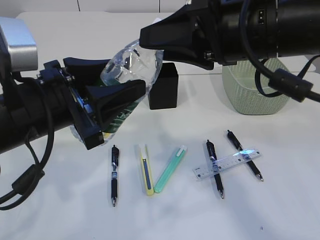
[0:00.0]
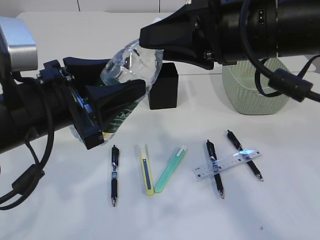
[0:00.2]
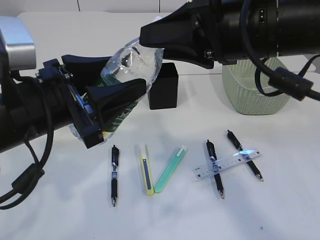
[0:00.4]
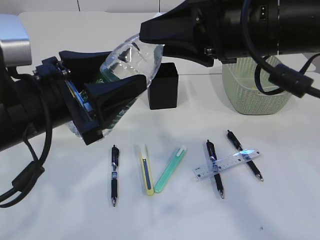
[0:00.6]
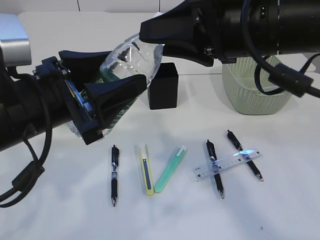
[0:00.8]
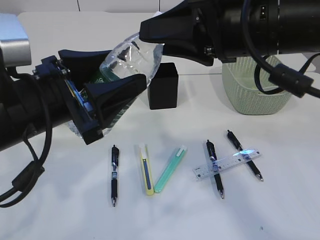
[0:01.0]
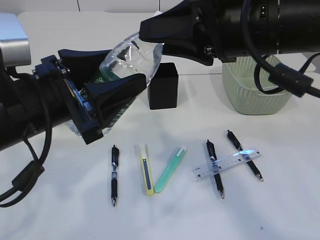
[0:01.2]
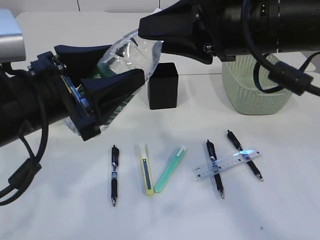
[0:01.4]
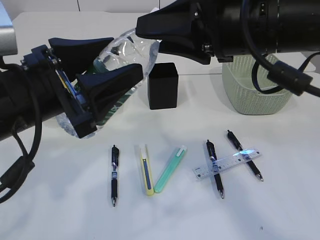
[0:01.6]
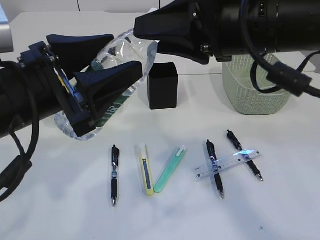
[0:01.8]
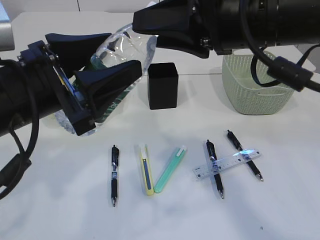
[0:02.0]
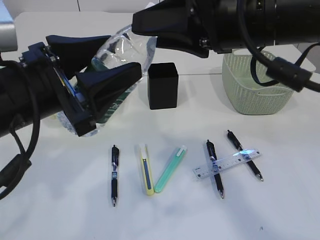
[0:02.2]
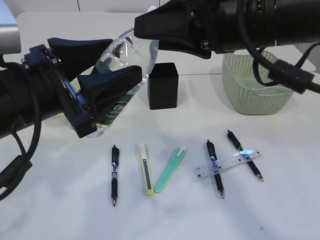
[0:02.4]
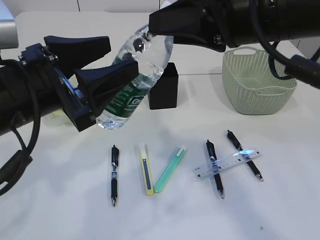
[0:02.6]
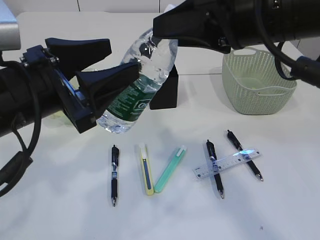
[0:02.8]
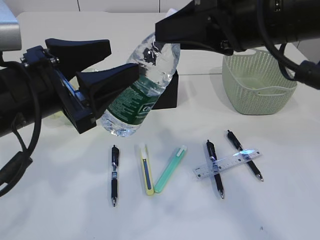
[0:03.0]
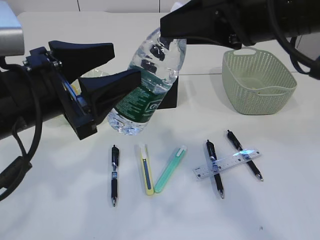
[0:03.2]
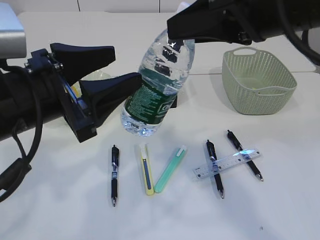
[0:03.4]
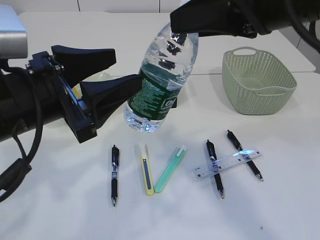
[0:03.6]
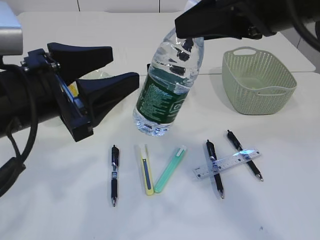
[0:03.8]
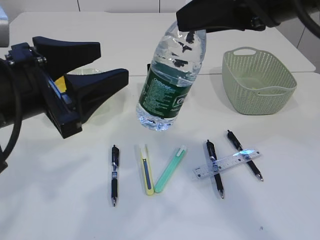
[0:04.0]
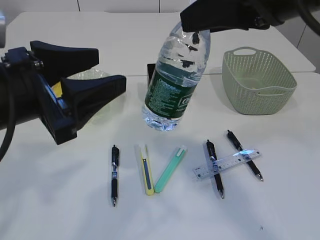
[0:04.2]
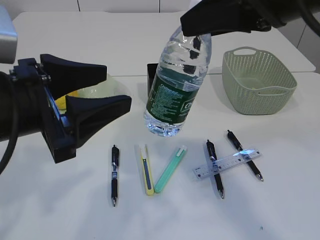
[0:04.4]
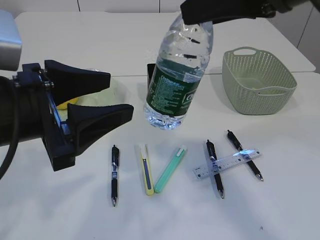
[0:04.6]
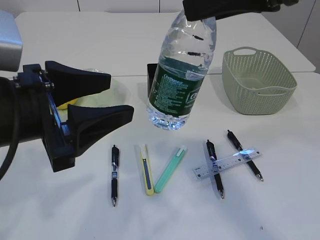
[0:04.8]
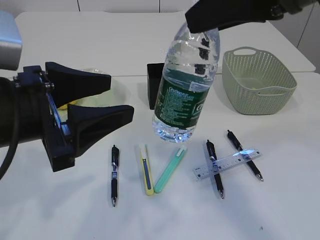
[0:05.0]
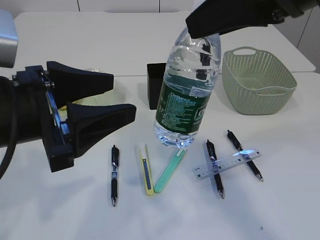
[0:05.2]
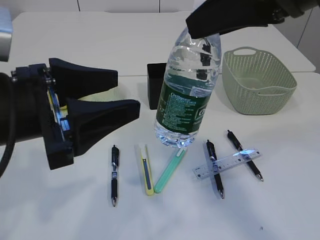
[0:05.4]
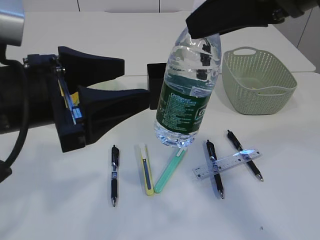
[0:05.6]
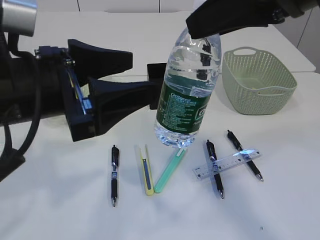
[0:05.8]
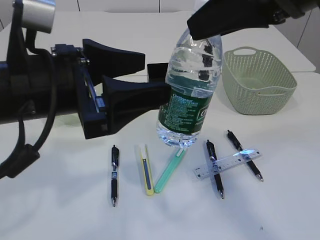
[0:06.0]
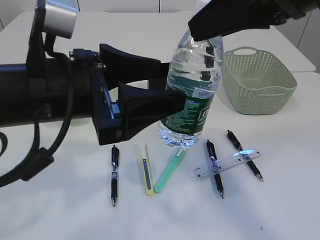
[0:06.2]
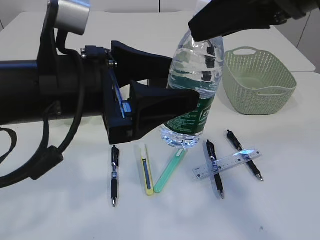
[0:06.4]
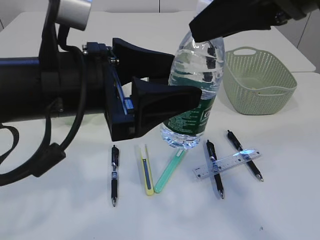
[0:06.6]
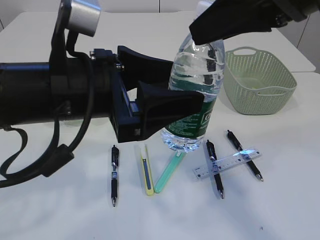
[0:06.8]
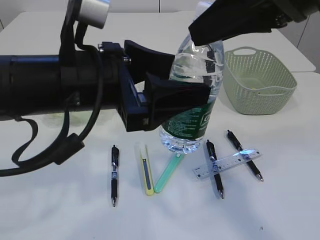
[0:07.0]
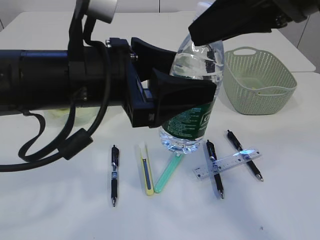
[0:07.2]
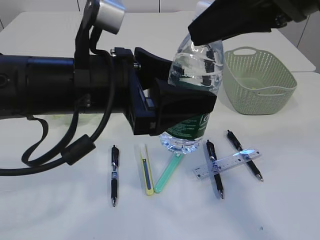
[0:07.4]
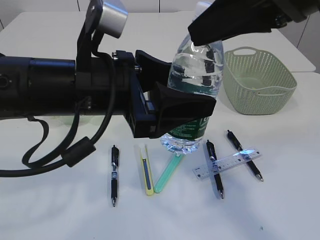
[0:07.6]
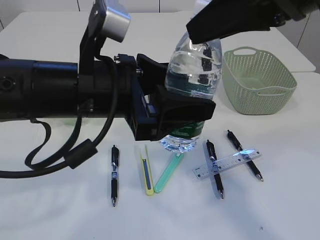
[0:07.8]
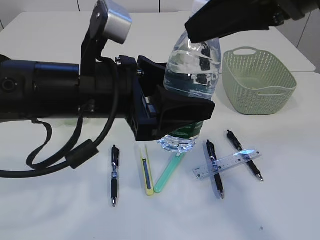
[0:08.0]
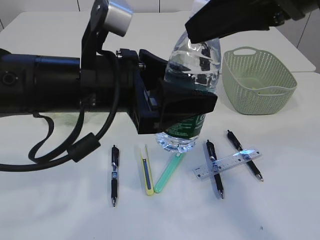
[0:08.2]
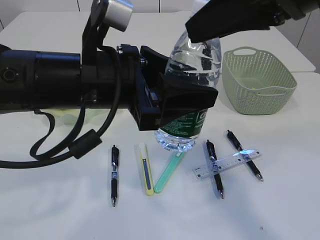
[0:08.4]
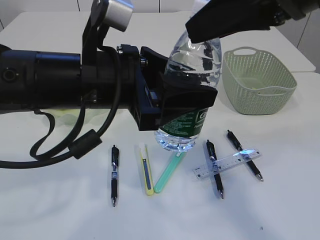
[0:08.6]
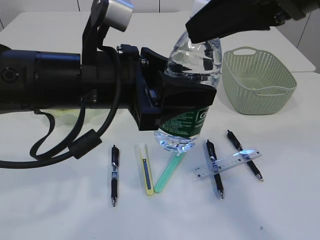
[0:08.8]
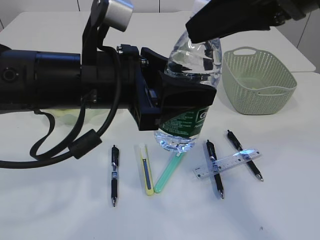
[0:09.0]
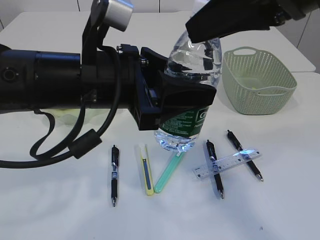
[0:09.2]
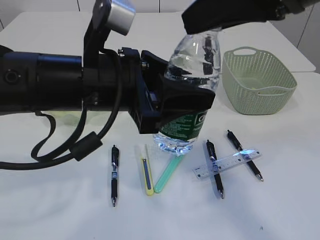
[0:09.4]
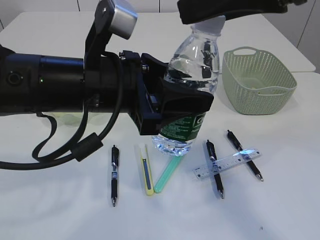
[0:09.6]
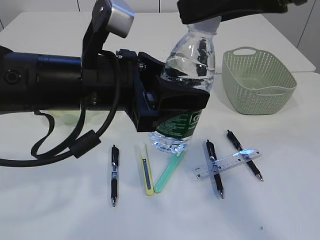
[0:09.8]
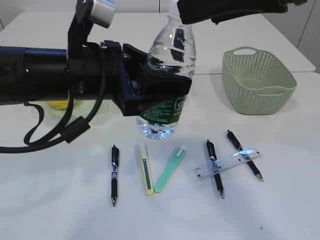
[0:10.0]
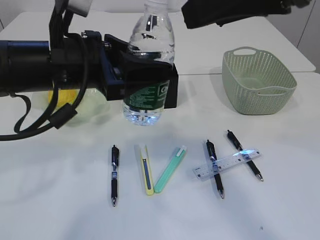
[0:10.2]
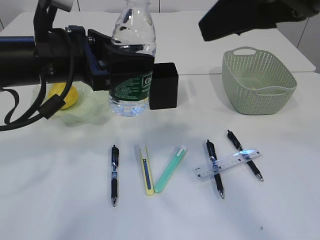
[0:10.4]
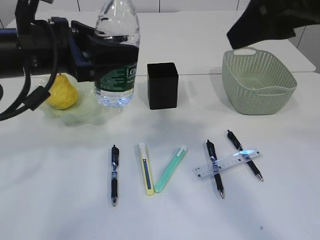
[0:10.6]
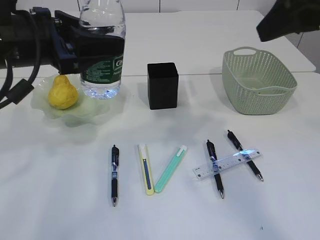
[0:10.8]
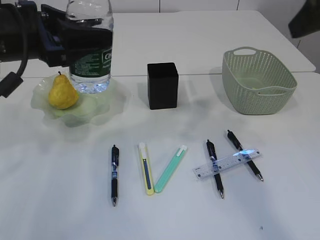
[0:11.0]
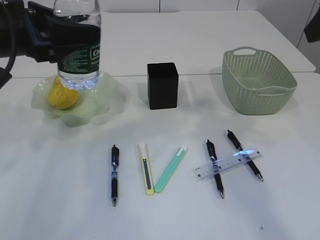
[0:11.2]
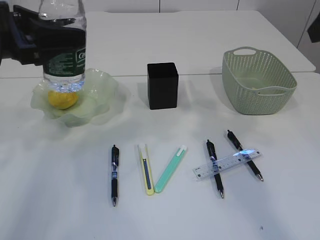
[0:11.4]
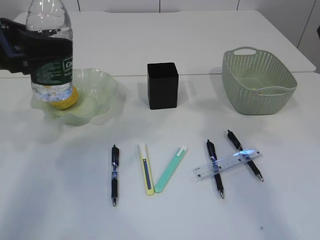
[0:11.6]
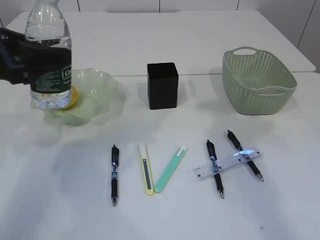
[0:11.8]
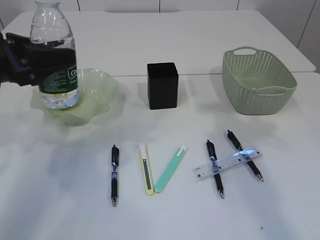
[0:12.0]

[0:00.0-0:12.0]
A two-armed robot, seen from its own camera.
Step, 0:00.0 to 0:04.0: Hand over the bottle.
Step, 0:04.2 to 0:10.8: transfer the bottle to the left arm.
0:00.0 to 0:03.0: The grippers move only a little.
0:06.0 to 0:07.6: The left gripper shifts by some 5 cm.
0:07.6 to 0:09.0: Both grippers stay put.
0:09.0 to 0:10.4: The left gripper goes approximately 10 cm to the left and forward; the right gripper opens its fingers.
0:10.4 to 0:12.0: The left gripper heads to the left, covering approximately 10 cm; the right gripper goes approximately 10 cm to the right.

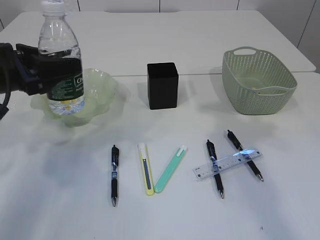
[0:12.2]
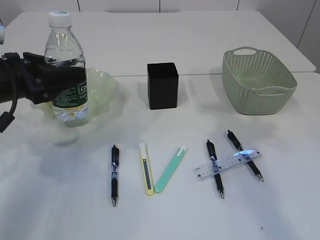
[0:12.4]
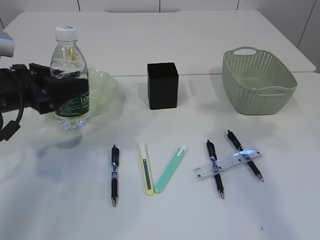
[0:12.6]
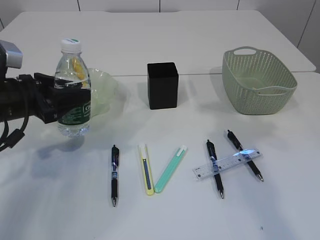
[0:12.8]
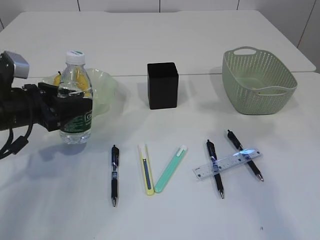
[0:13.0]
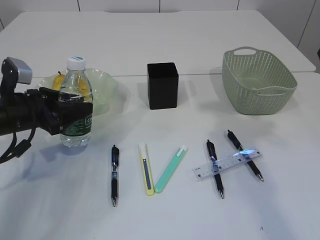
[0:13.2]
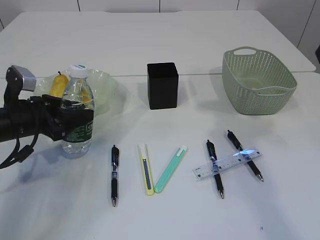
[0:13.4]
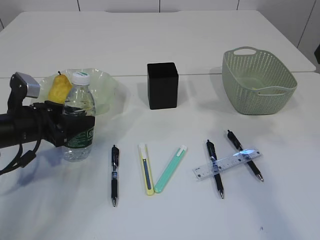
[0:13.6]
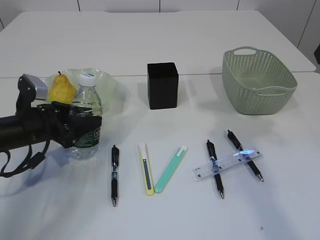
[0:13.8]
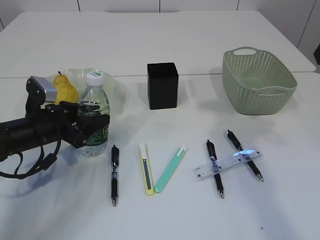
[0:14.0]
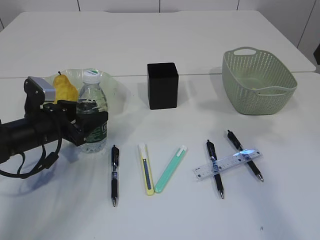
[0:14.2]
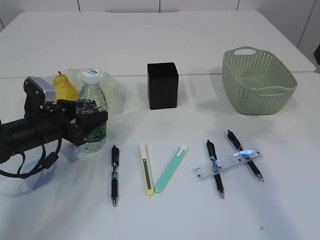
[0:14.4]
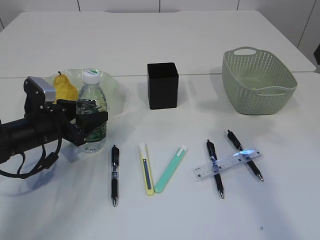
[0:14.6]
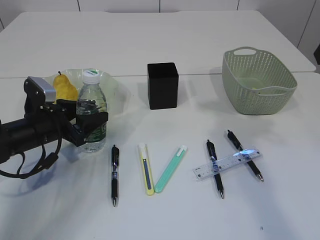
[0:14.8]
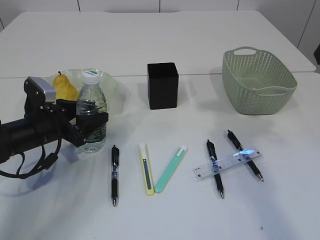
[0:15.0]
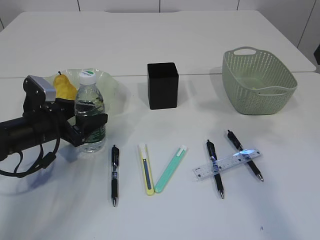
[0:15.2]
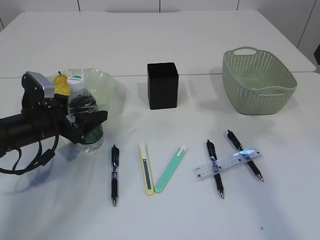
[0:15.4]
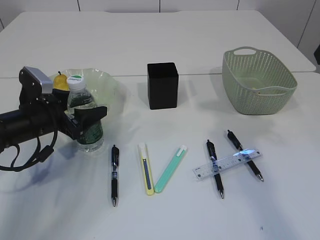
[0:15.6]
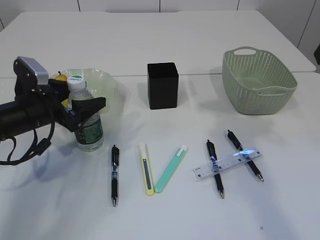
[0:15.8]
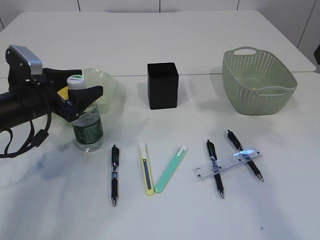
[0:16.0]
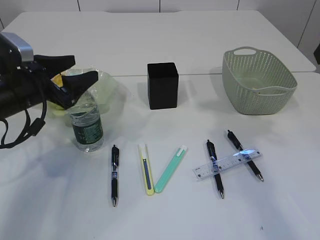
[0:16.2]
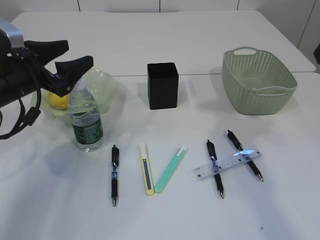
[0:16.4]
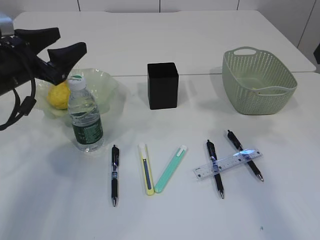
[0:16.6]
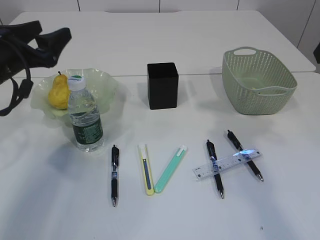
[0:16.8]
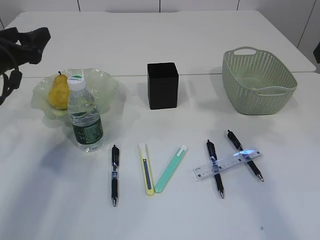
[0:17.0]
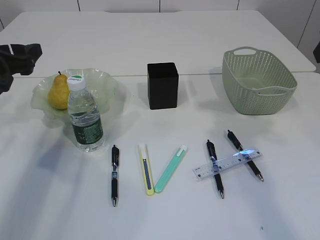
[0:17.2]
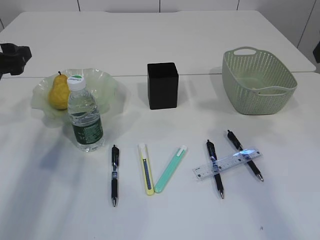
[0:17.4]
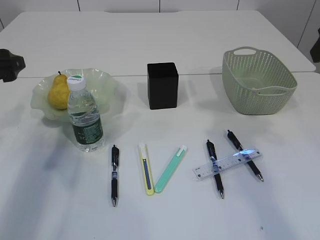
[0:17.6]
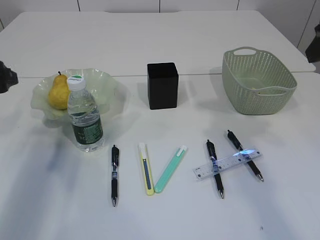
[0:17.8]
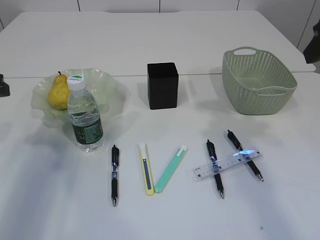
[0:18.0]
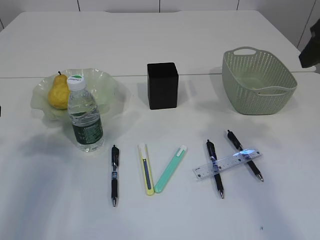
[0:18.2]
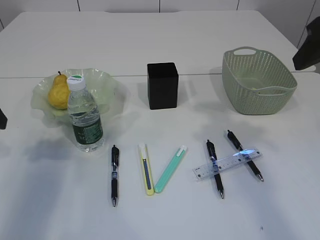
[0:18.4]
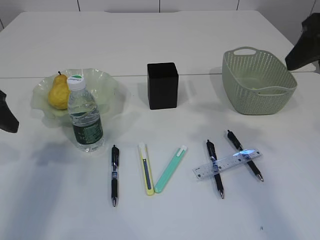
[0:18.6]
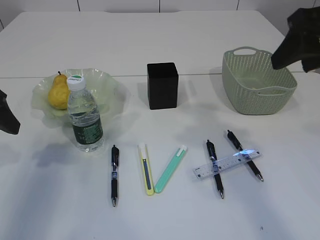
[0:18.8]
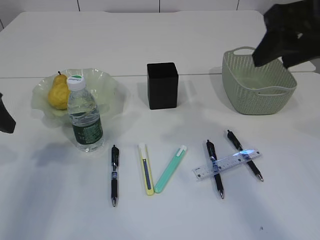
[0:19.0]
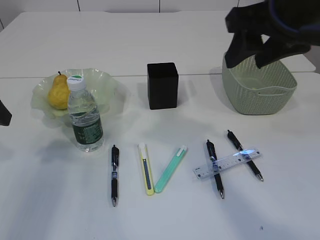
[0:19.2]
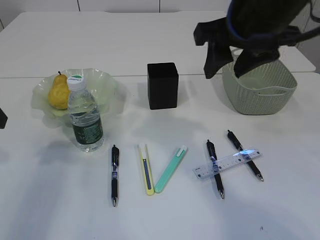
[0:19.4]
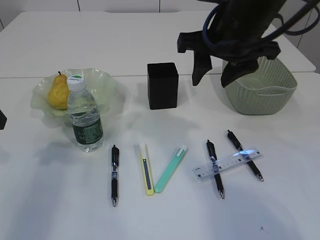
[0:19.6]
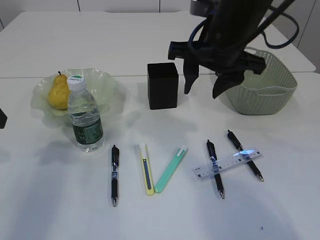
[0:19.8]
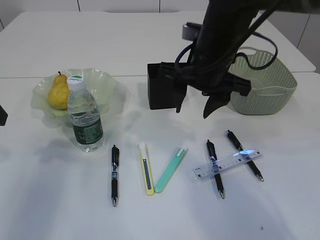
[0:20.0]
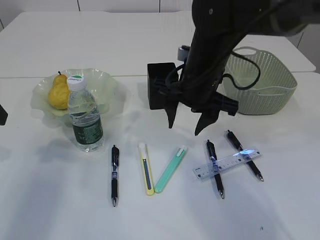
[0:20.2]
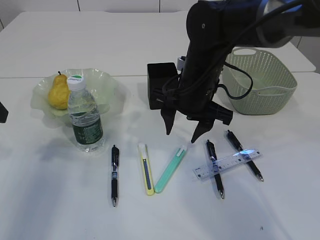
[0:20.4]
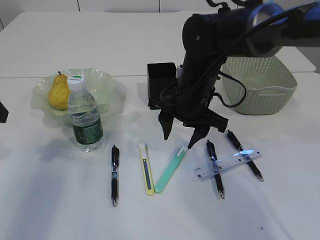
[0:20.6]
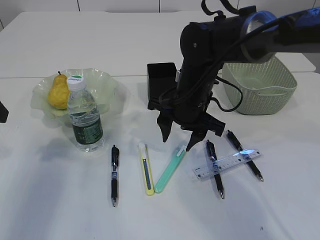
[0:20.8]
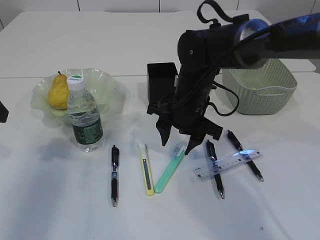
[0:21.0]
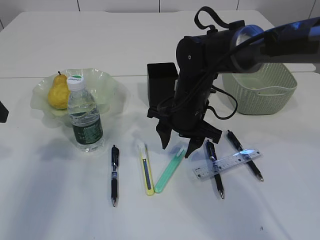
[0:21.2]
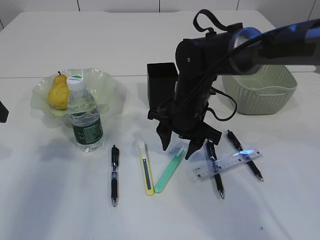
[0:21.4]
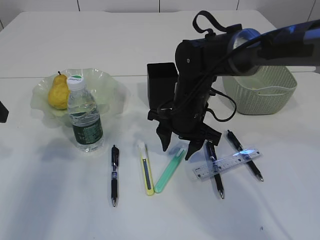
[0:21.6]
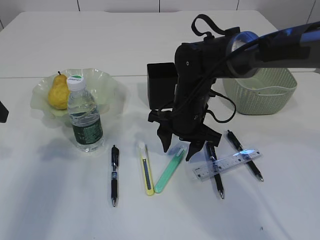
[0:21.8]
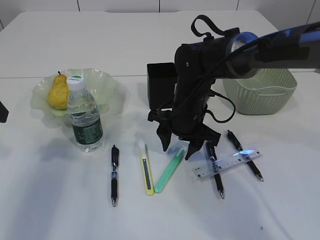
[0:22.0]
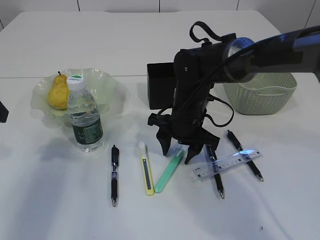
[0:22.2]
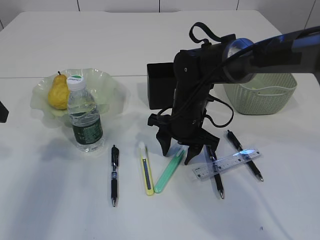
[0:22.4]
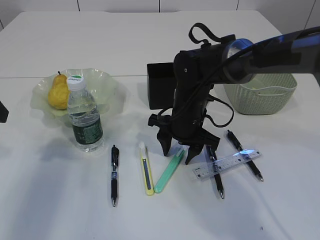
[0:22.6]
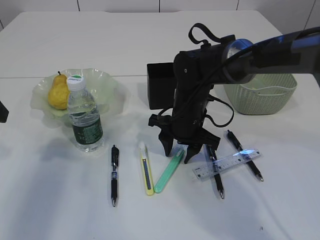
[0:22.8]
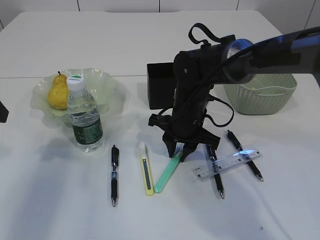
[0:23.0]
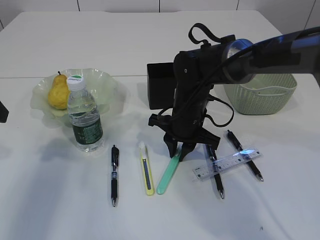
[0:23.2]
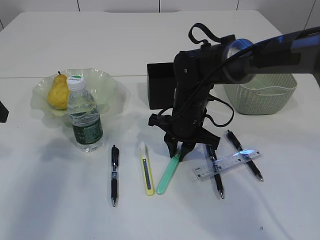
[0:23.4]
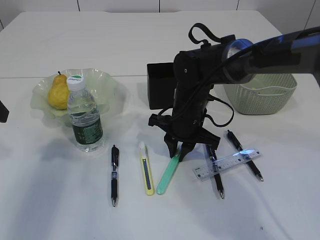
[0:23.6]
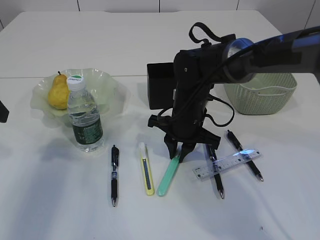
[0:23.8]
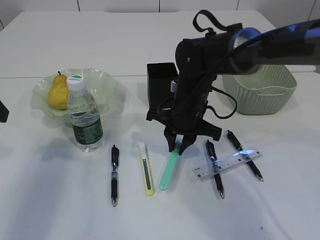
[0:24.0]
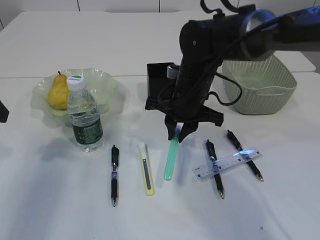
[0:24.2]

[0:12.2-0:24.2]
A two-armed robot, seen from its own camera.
Step, 0:12.2 to 0:16.6: Place the bottle.
0:12.2 to 0:13.8: The left gripper travels downward by about 15 cm.
0:13.8 to 0:15.2: The grippers move only a little.
0:15.2 to 0:16.6: The left gripper is displaced upward by some 10 cm.
0:16.6 to 0:18.2: The left gripper moves to the left and backward, some 10 cm.
0:18.2 to 0:19.8: The right gripper goes roughly 20 cm to the left, forward and downward.
0:19.8 to 0:21.2: The right gripper heads downward, covering approximately 15 cm.
0:21.2 to 0:22.6: The grippers move only a little.
0:22.6 to 0:24.2: The right gripper moves upward, approximately 5 cm, and closes.
